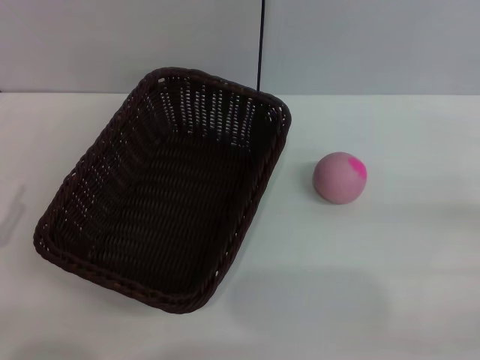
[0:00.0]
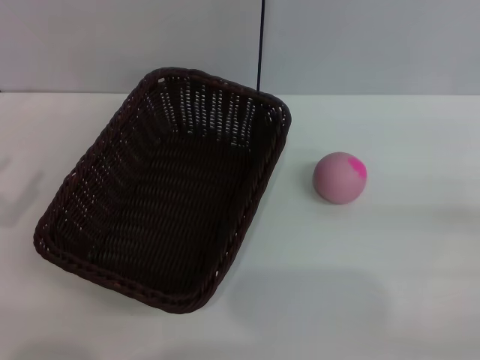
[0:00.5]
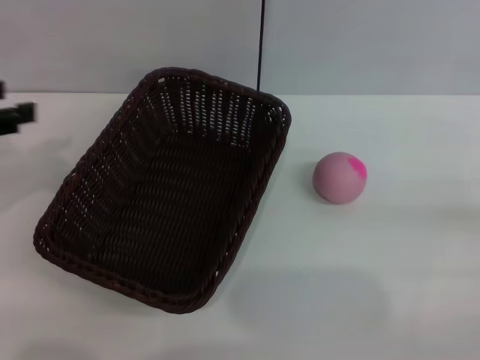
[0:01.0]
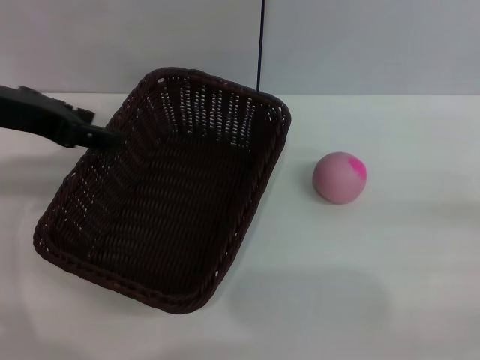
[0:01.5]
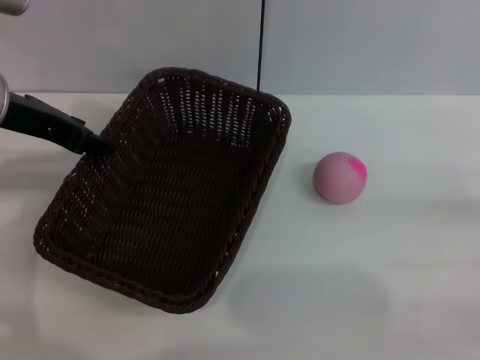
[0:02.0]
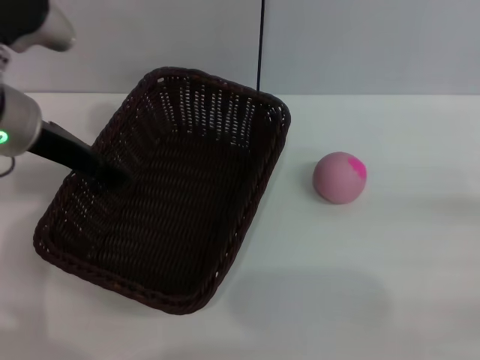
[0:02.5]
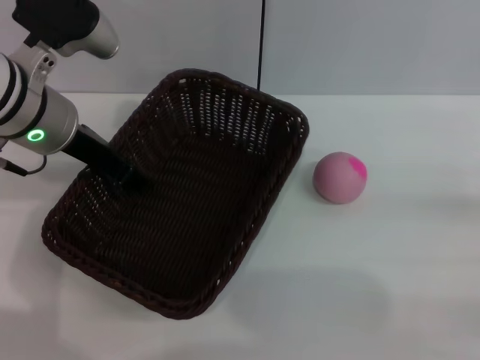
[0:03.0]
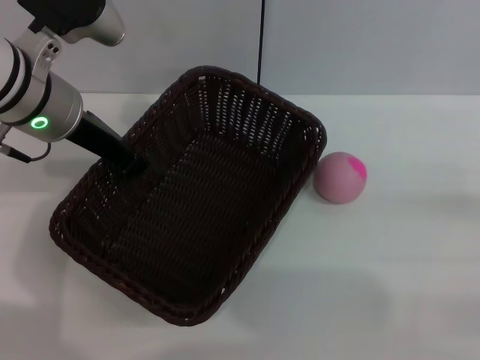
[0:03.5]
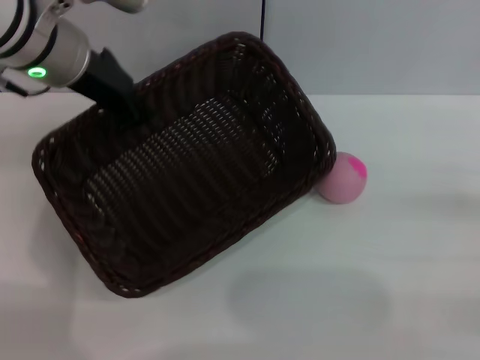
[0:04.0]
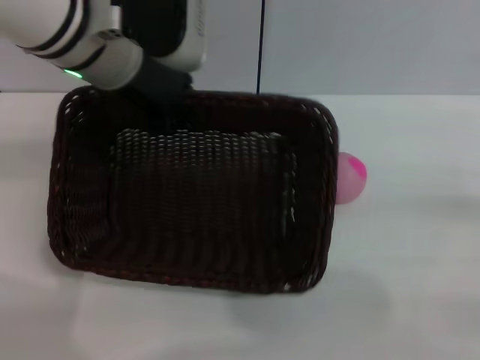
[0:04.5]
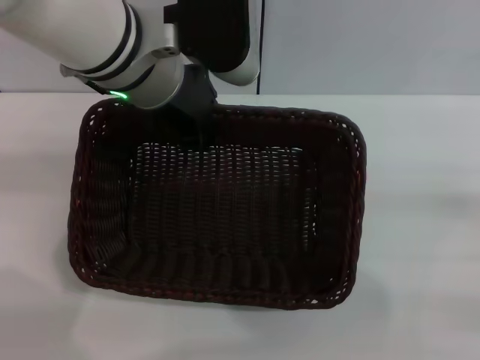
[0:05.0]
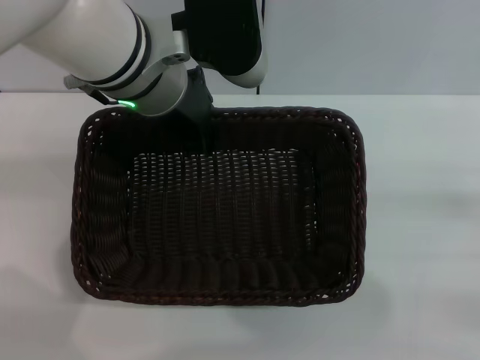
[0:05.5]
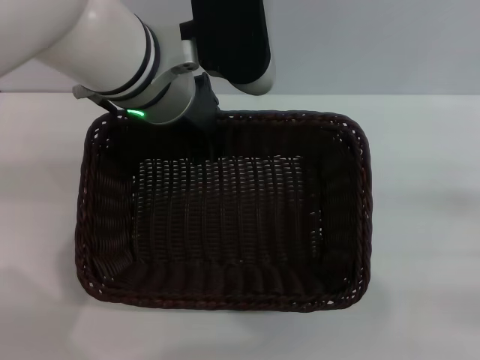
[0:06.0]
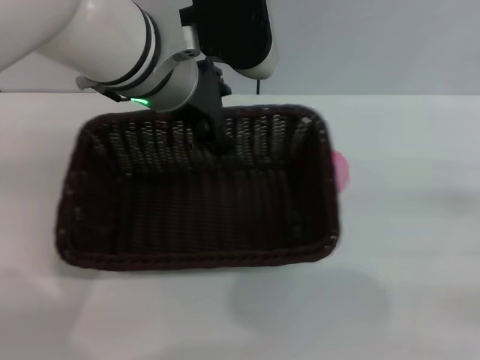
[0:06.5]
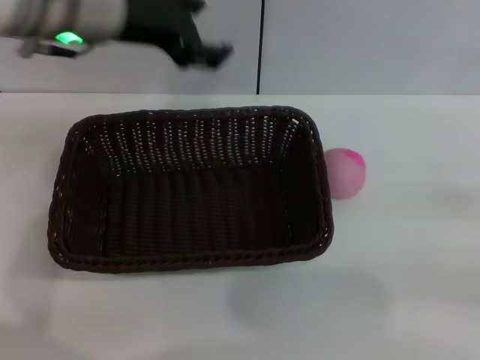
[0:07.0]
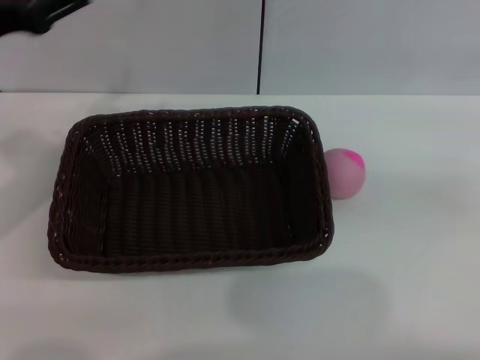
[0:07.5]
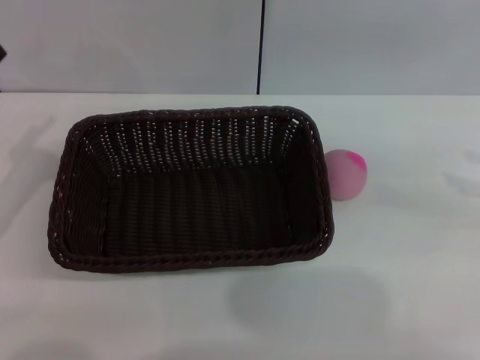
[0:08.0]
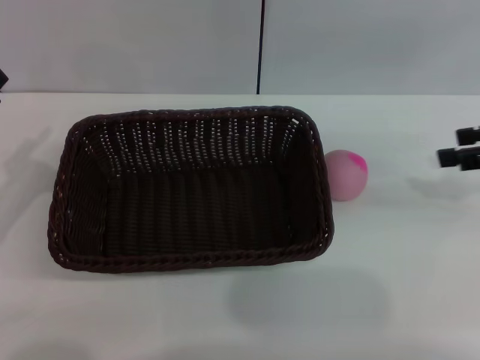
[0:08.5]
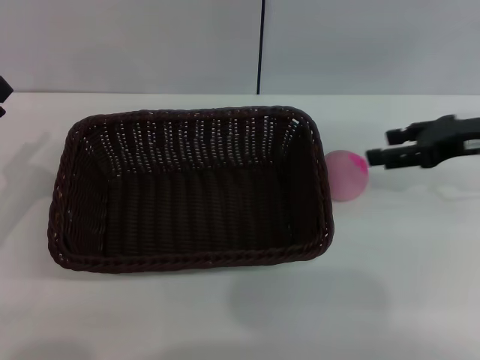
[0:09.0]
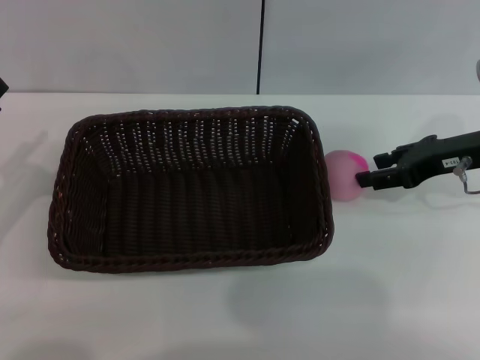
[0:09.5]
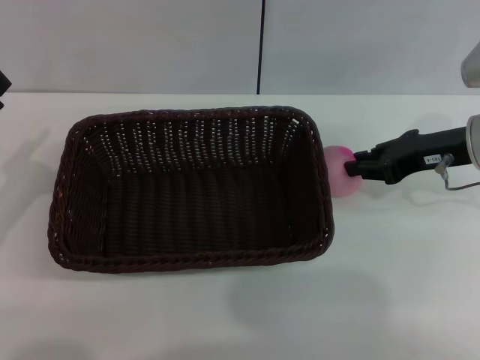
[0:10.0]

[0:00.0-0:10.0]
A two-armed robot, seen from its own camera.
Step, 0:00.0 to 0:04.0: Pick up the dark basket with the left gripper.
Step, 0:04.5 to 0:06.5: Place the dark basket in the center of view with the right gripper.
0:00.0 to 0:02.0: The left gripper is displaced forward, upward and to the right by approximately 25 cm.
0:02.0 to 0:04.0: The left gripper is displaced to the right by some 5 cm, and closes.
0:04.0 to 0:06.0: The left gripper goes some 10 cm to the right.
0:06.0 to 0:08.0: The left gripper heads to the left, covering approximately 25 cm, and opens; the right gripper travels upward and forward by some 15 cm.
0:08.0 to 0:10.0: The right gripper travels to the left, downward and forward by about 20 cm, and closes up.

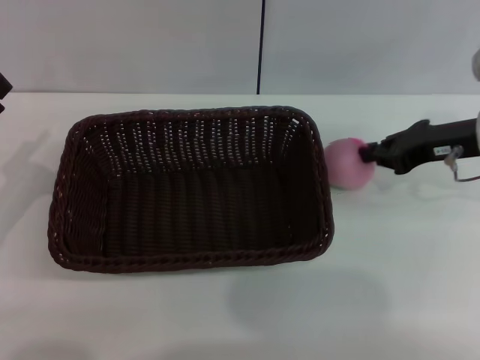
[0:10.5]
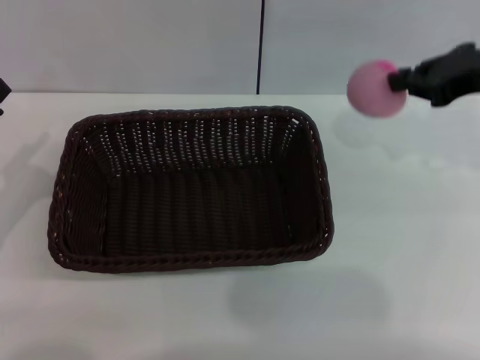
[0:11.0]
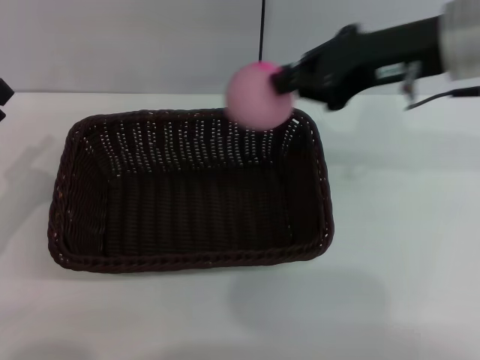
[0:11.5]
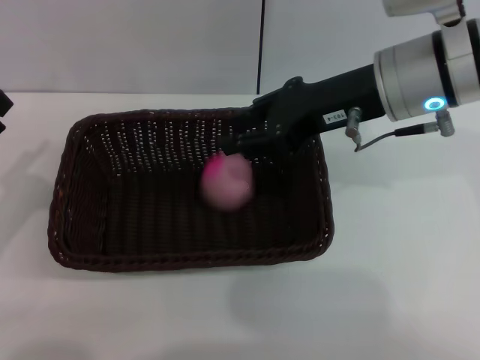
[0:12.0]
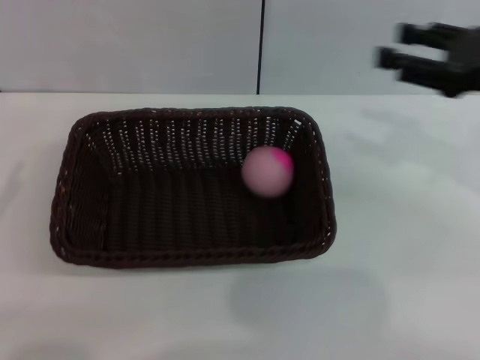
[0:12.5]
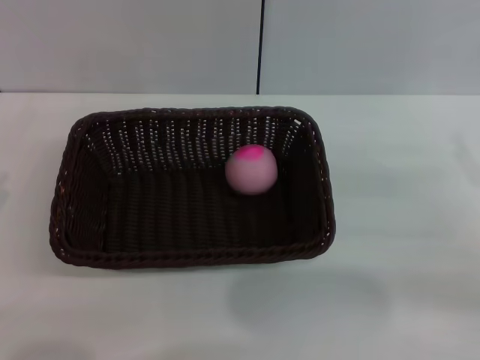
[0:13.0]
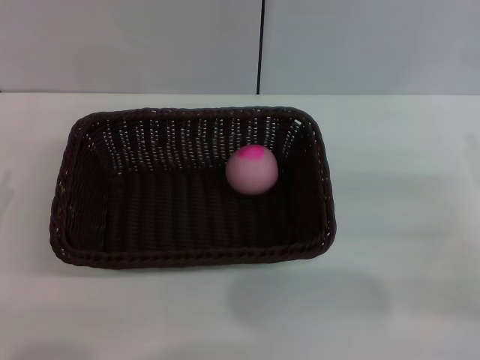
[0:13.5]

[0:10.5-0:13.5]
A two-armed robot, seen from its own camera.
Step, 0:11.5 to 0:12.0: Place the peach into the basket with the left gripper.
0:10.5 to 0:12.0: The right gripper travels to the left and upward by some 15 cm.
0:12.0 to 0:13.5: The right gripper goes roughly 25 cm to the right, downward and backward, and opens its fingers. Meanwhile the left gripper changes place by some 5 cm.
